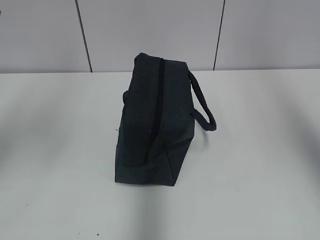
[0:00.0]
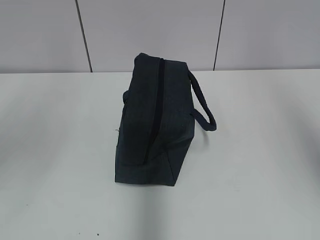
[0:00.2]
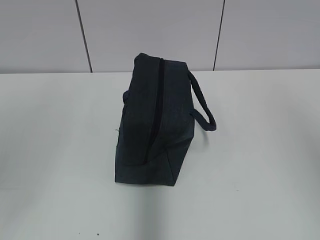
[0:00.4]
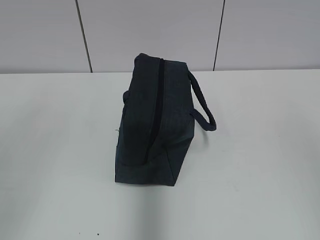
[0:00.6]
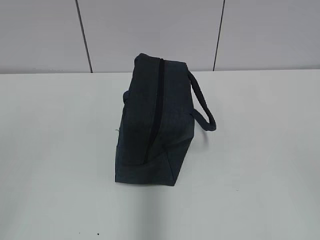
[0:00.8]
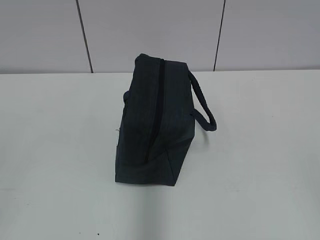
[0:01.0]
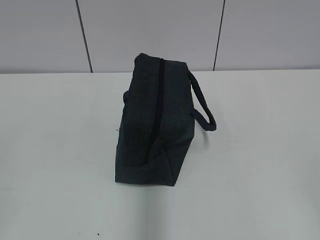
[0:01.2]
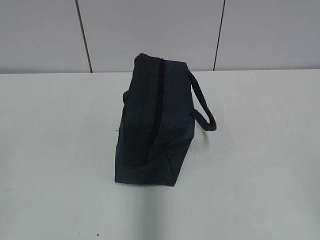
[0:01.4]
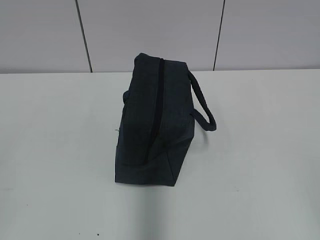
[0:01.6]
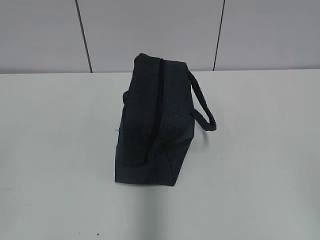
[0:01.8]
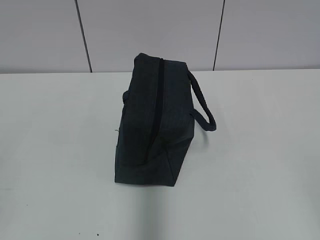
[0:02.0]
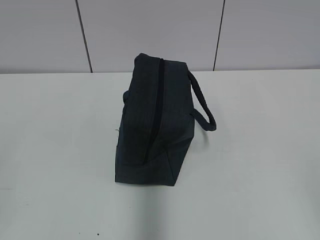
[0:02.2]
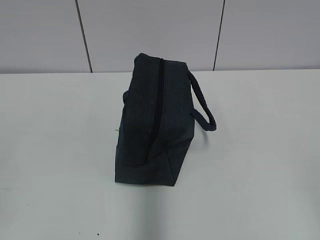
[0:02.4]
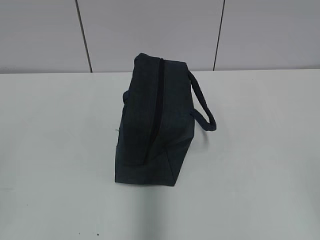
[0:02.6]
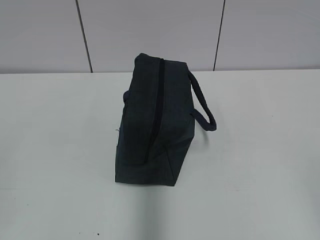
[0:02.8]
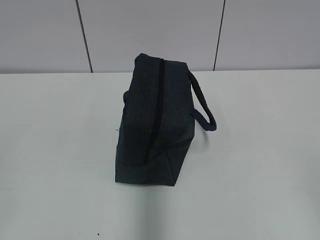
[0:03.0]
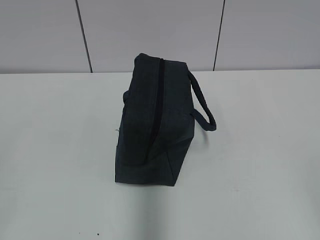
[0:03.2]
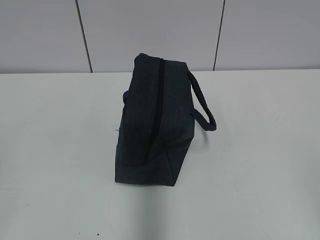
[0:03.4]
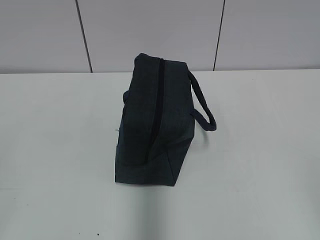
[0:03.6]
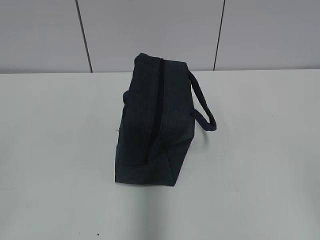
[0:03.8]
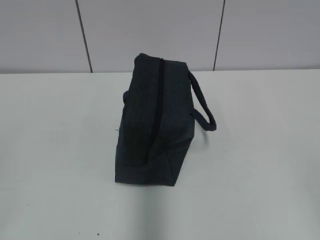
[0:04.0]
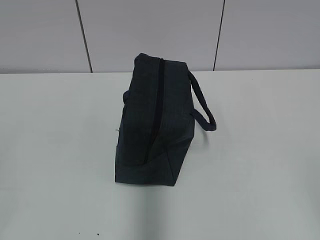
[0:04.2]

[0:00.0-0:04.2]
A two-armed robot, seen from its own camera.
0:00.0 to 0:01.4: The right gripper is displaced downward and backward by about 35 cm.
